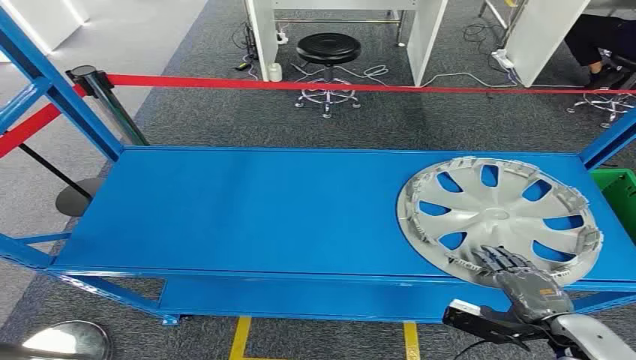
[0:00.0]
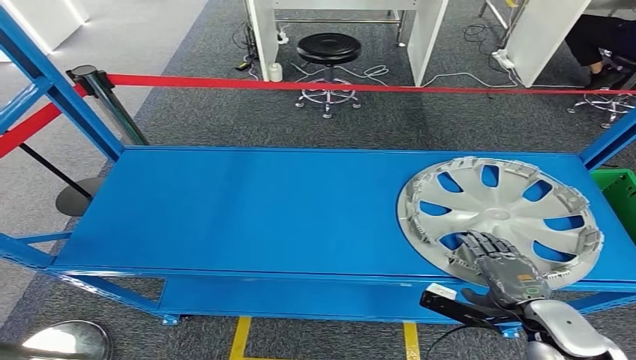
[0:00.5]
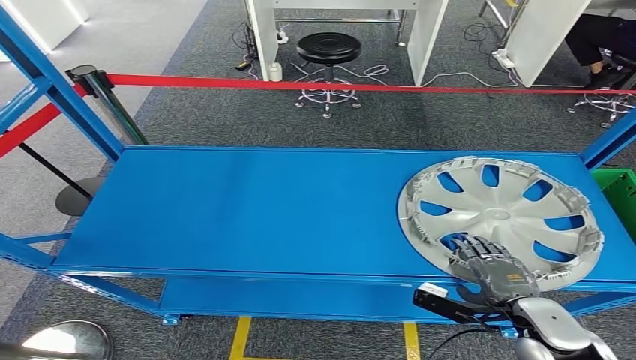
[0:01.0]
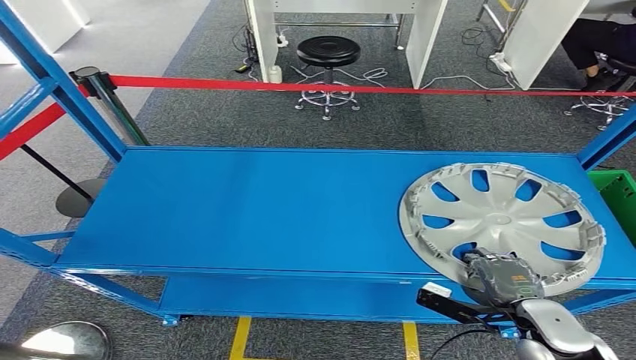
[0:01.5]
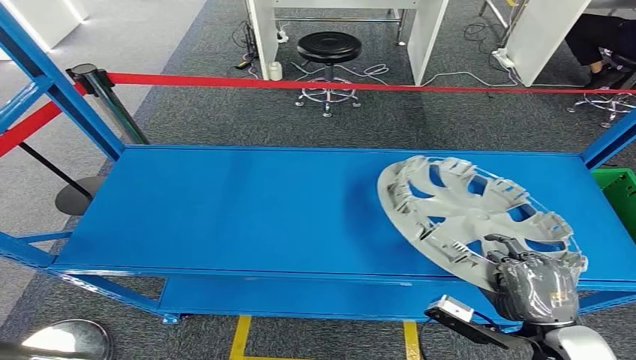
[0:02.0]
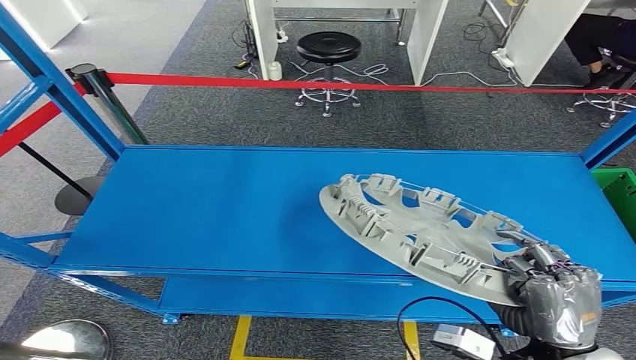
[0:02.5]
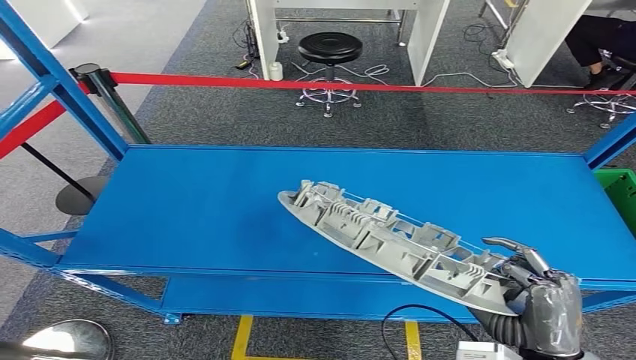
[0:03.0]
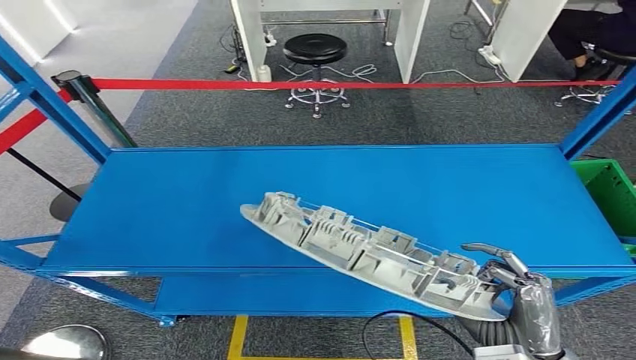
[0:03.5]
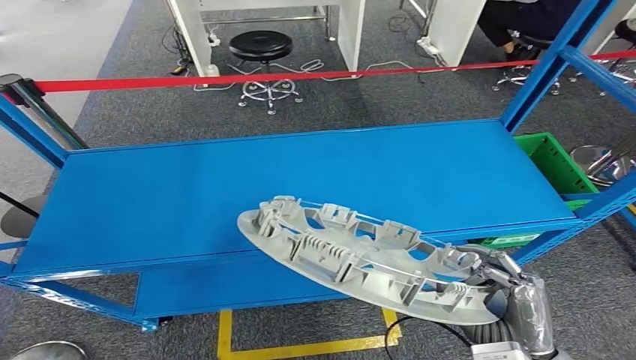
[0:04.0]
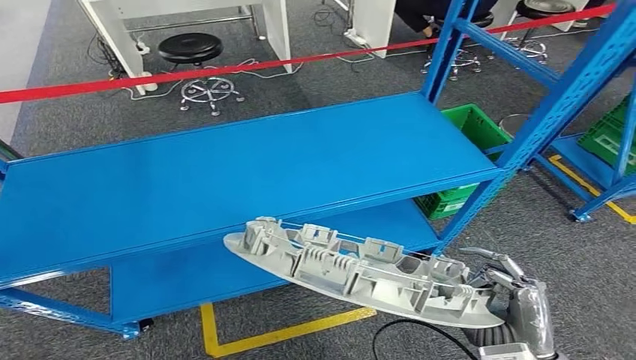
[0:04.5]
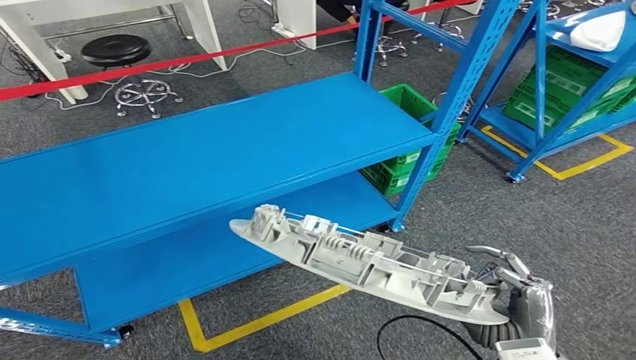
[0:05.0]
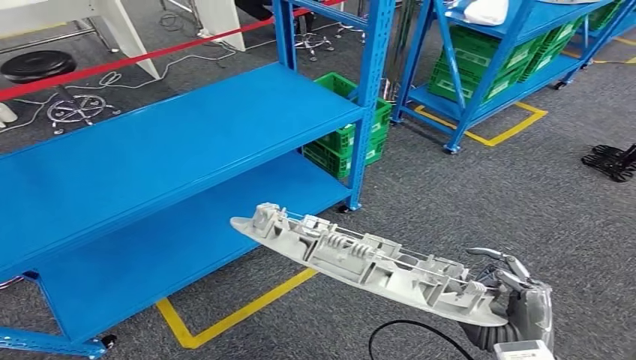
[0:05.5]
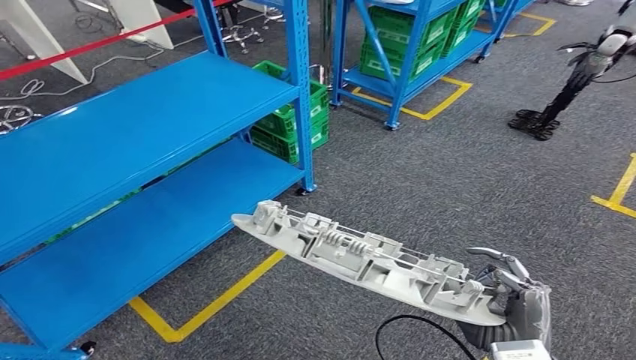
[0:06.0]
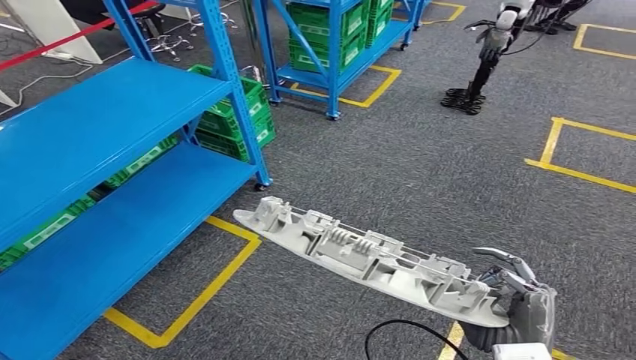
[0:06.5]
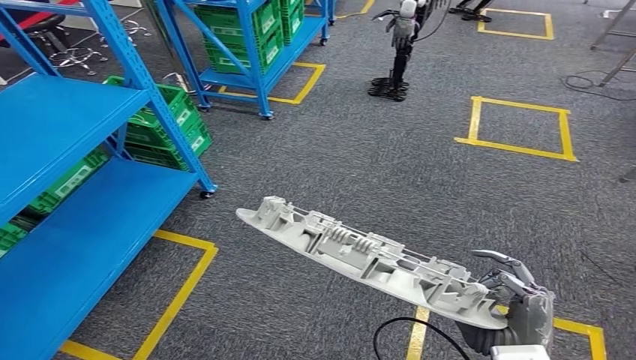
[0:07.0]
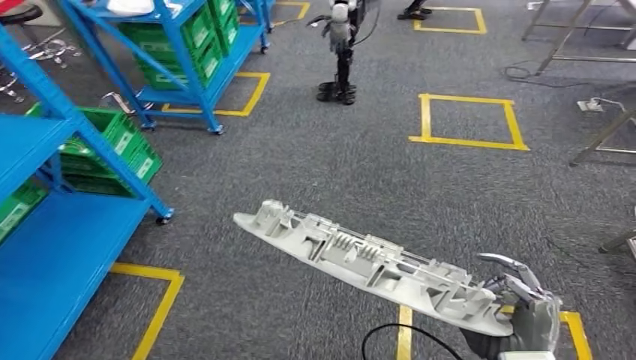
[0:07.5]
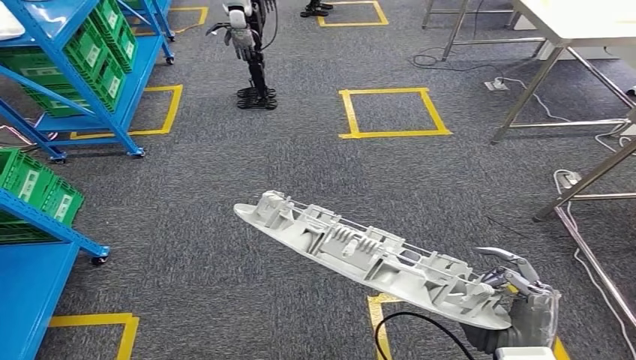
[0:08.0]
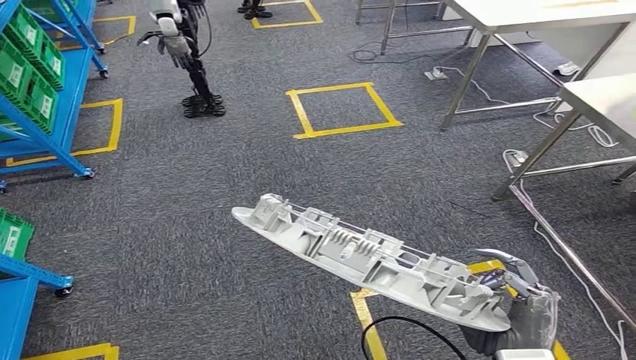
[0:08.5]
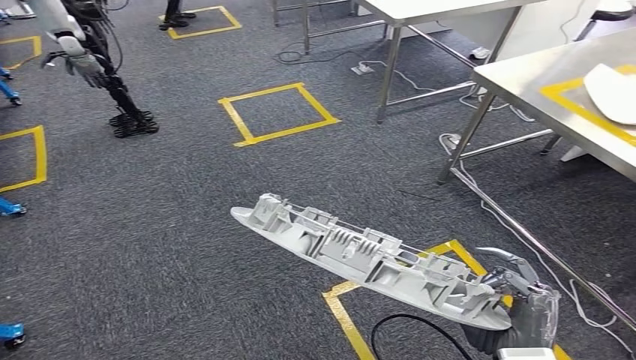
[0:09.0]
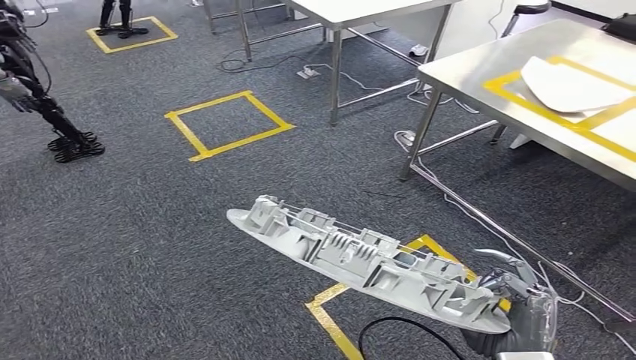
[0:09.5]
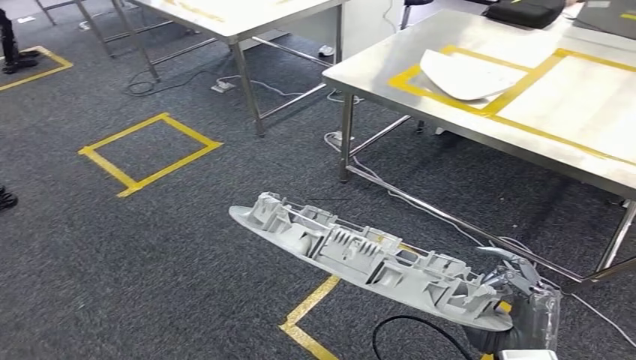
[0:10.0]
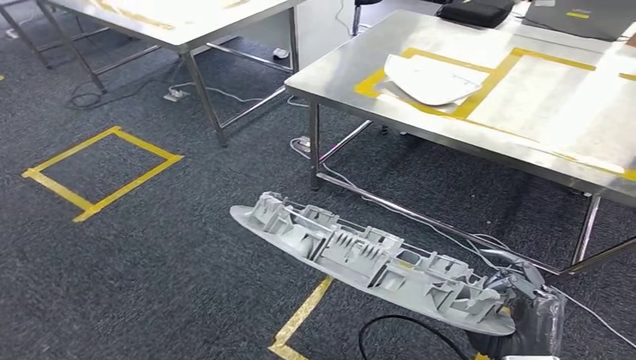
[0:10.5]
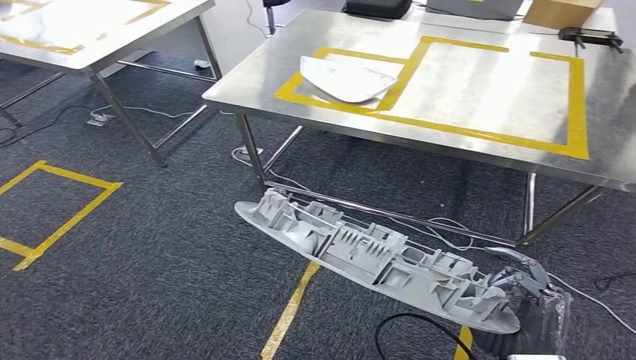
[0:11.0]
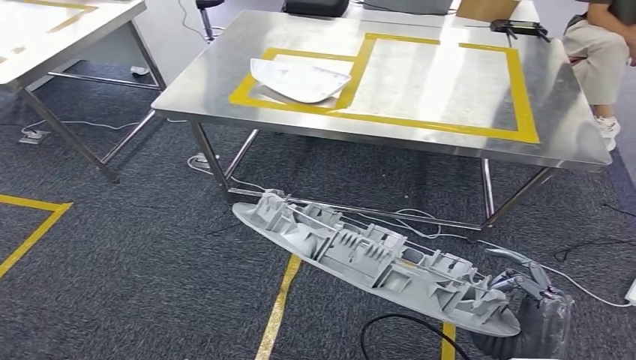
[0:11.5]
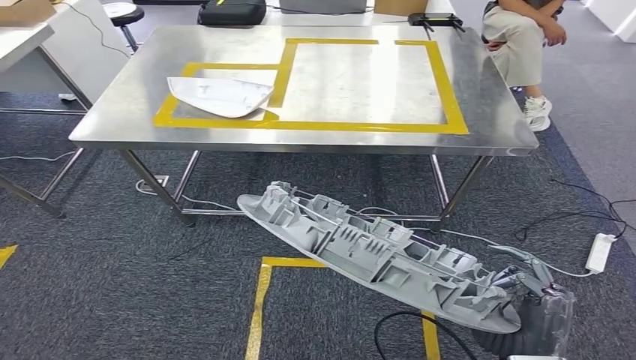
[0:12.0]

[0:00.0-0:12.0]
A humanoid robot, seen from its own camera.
Step, 0:00.0 to 0:04.0: Pick up the small component from the shelf.
Step, 0:05.0 to 0:11.5: Move the small component to the workbench.

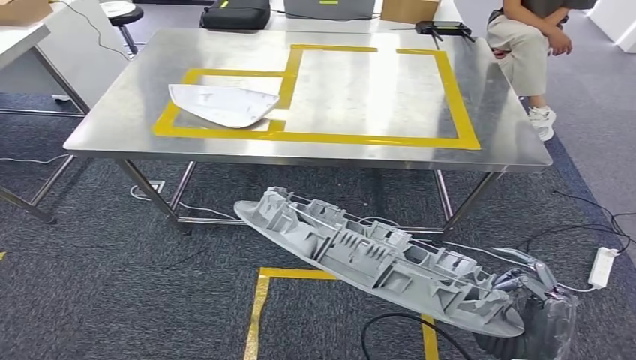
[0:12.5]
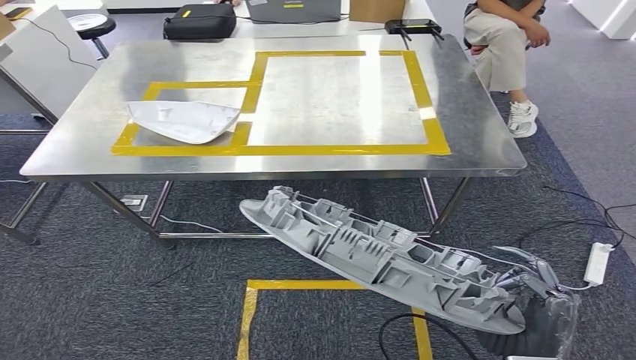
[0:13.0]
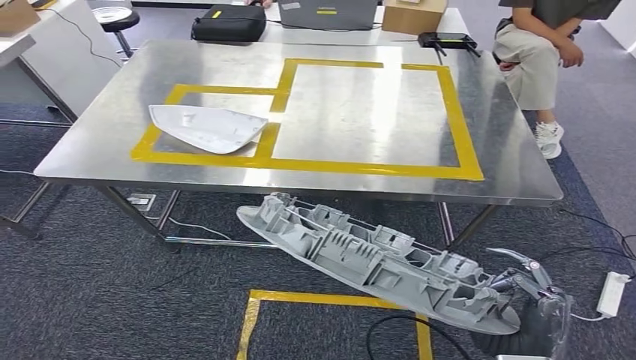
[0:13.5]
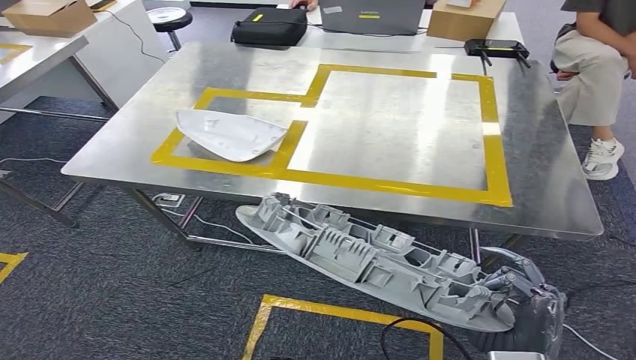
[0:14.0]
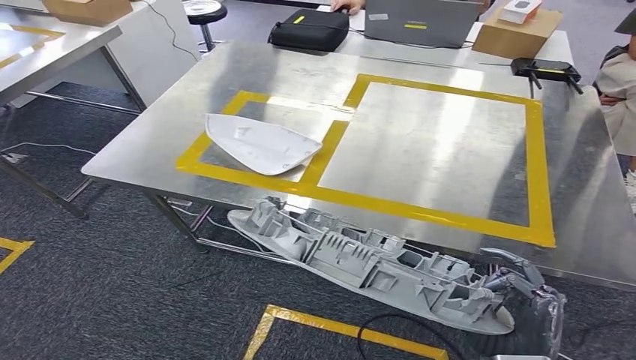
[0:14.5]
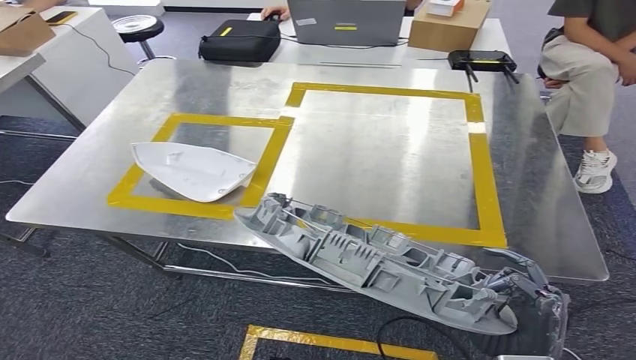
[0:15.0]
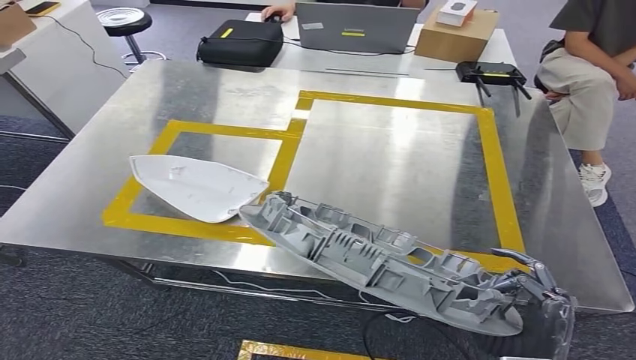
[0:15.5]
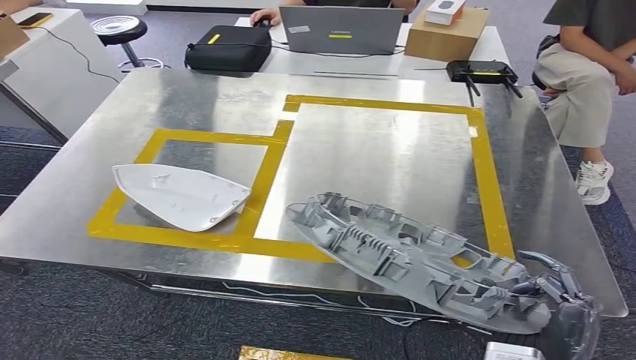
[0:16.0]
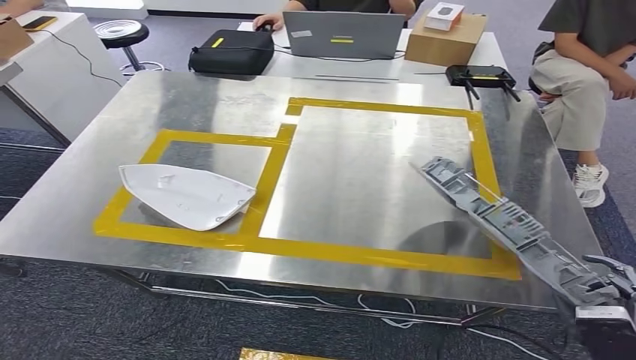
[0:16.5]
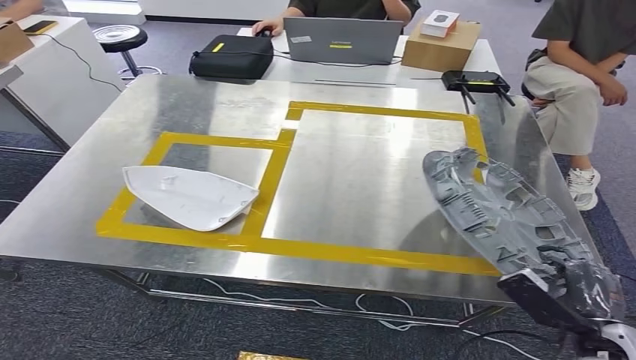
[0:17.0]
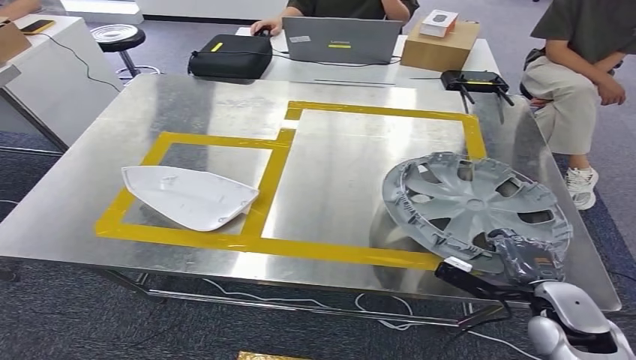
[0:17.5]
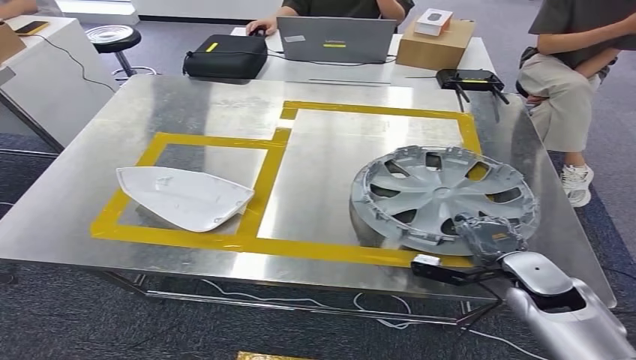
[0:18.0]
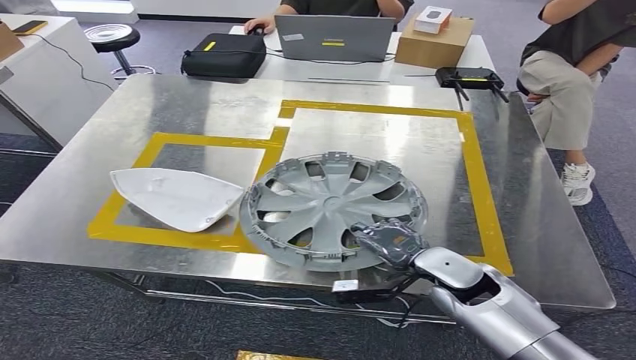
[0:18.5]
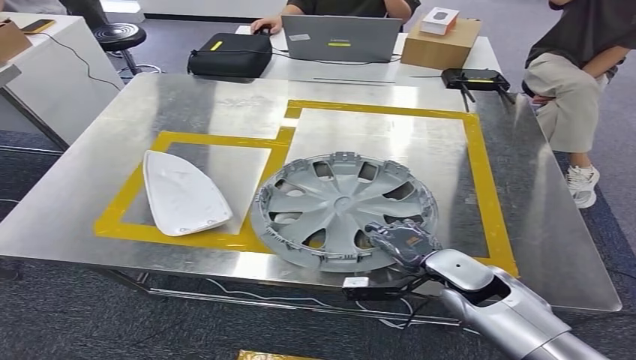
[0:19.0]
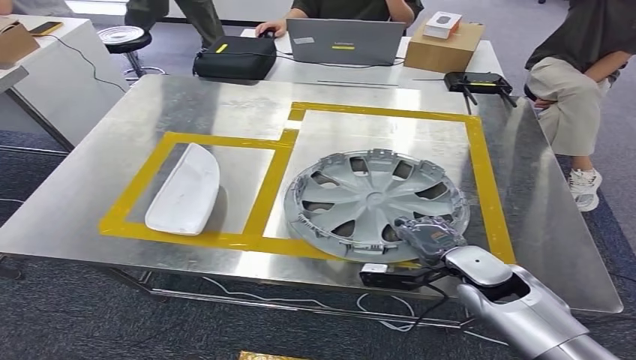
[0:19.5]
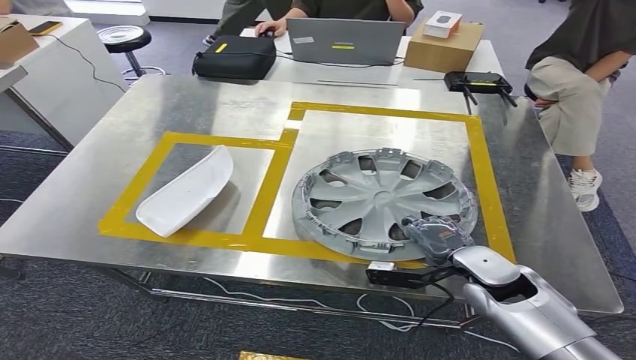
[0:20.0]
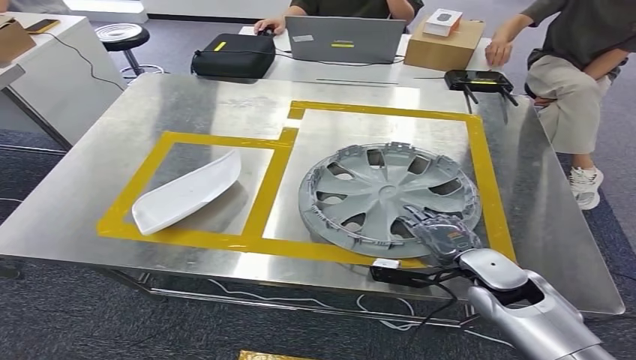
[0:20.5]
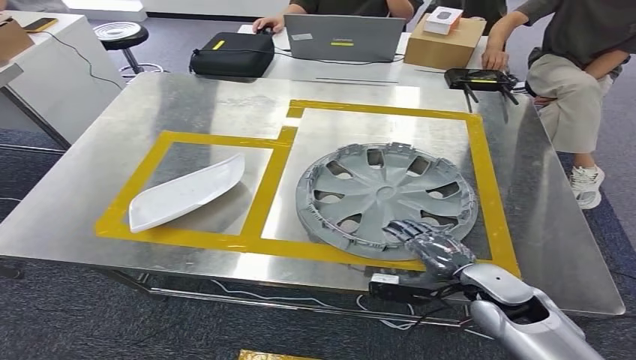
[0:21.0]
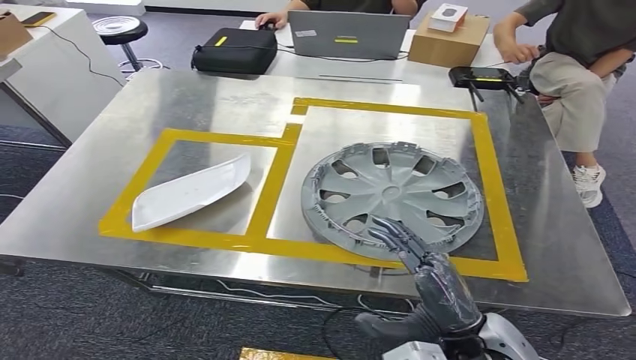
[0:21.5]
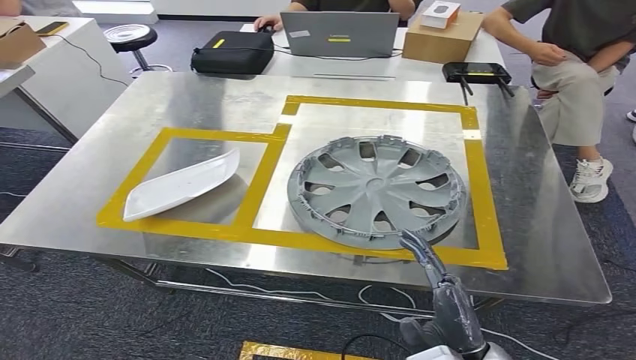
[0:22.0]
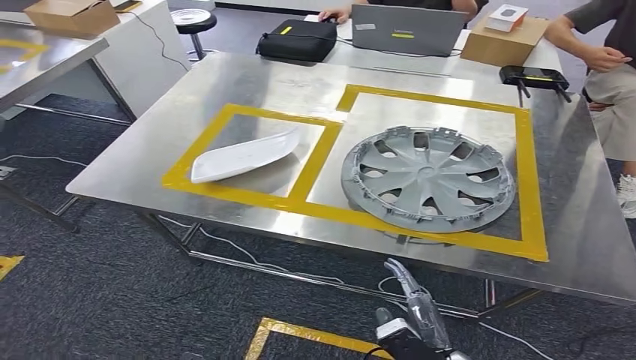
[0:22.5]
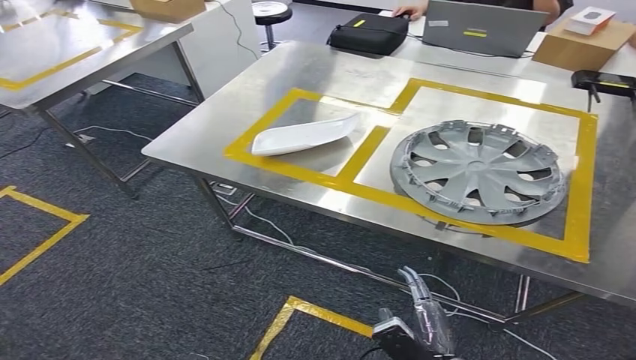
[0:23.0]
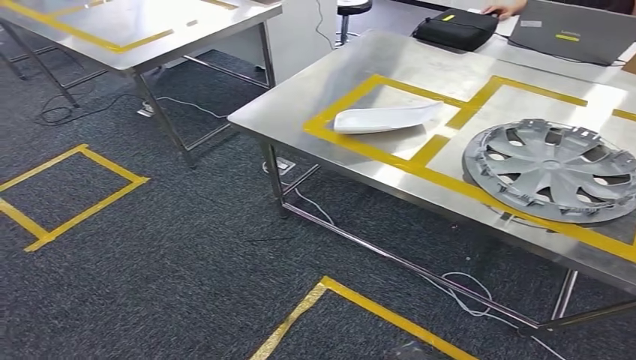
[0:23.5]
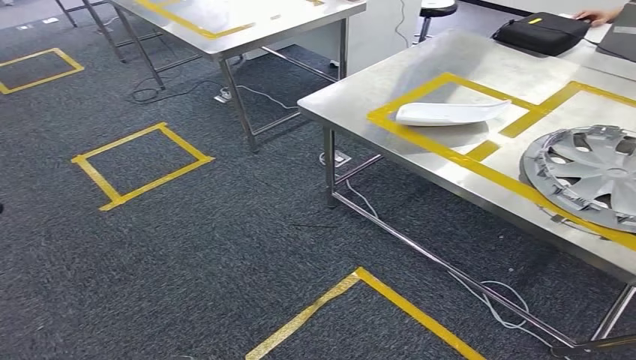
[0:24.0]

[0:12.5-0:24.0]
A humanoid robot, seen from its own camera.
Step, 0:12.5 to 0:23.5: Insert the small component into the corresponding slot on the workbench.
